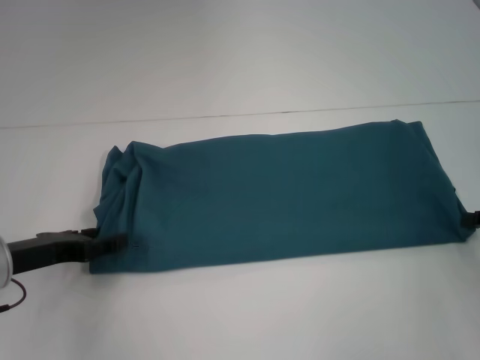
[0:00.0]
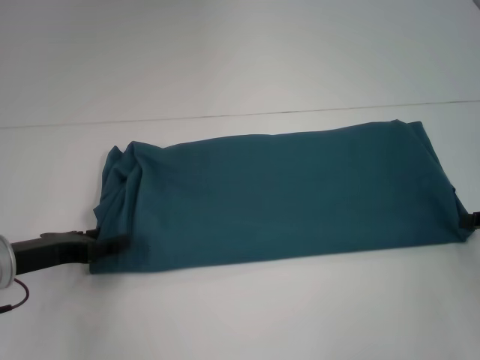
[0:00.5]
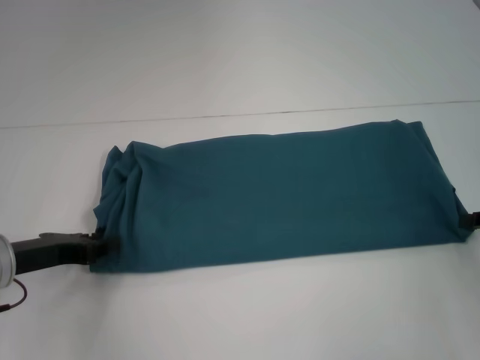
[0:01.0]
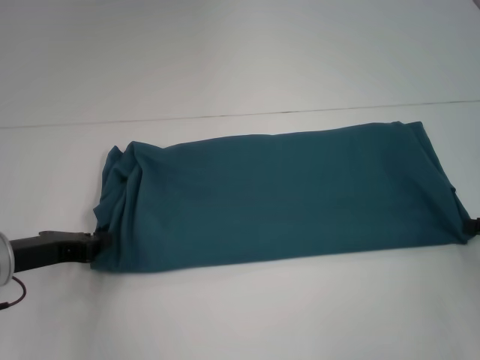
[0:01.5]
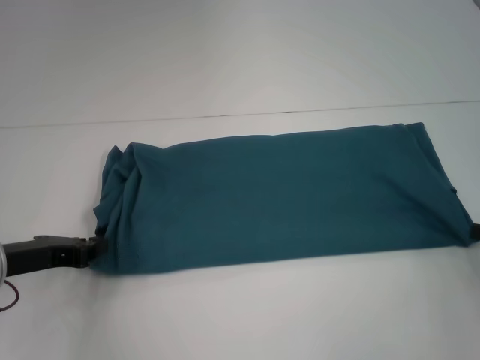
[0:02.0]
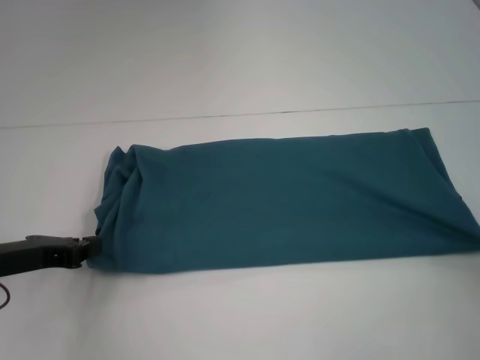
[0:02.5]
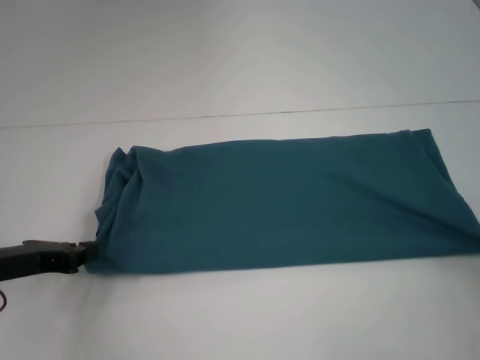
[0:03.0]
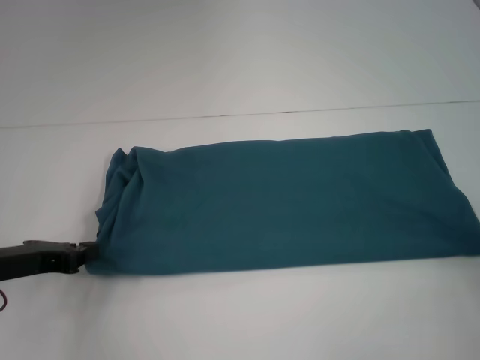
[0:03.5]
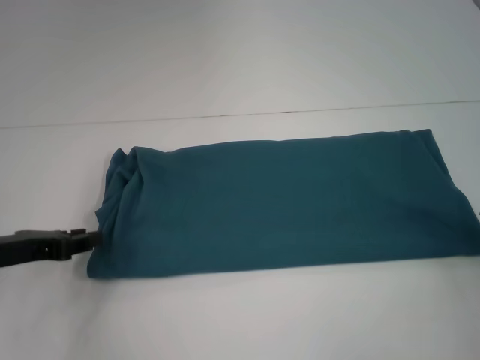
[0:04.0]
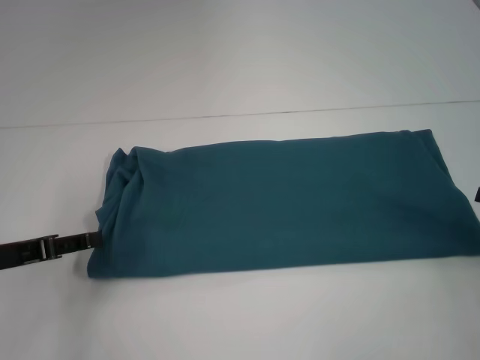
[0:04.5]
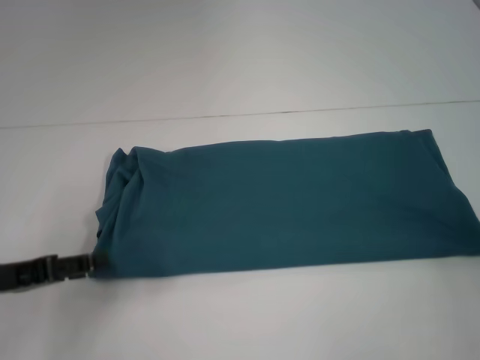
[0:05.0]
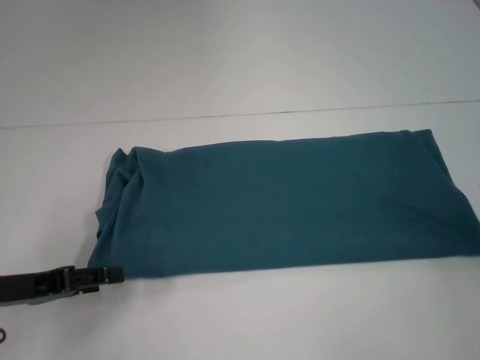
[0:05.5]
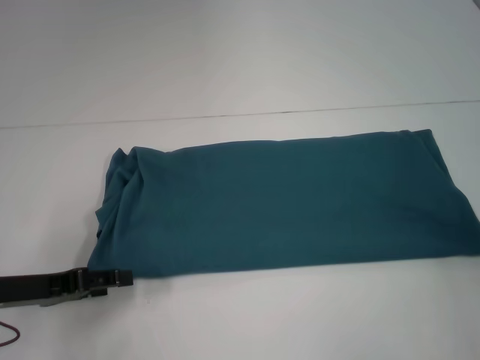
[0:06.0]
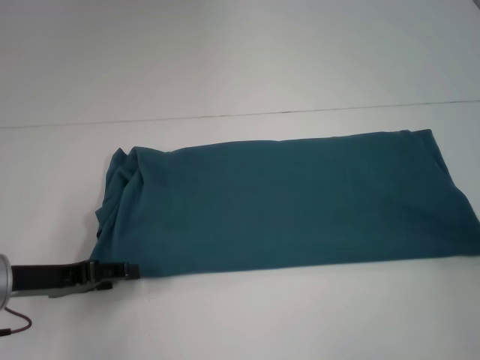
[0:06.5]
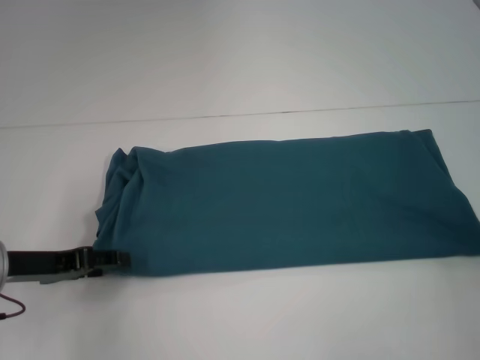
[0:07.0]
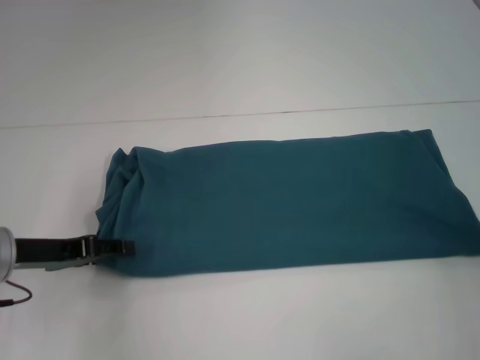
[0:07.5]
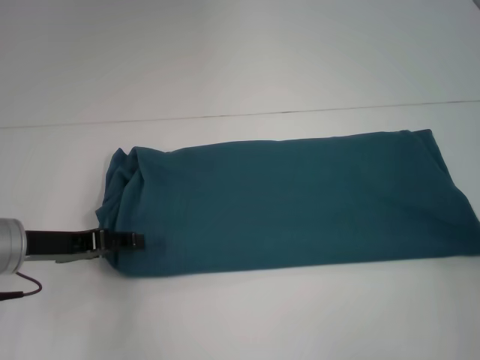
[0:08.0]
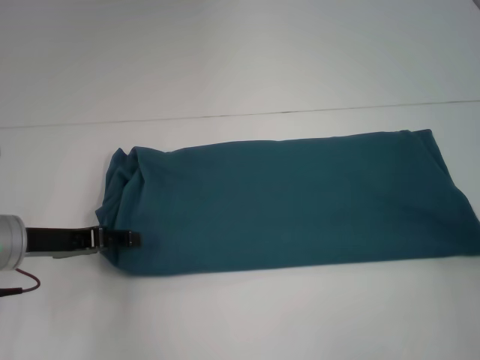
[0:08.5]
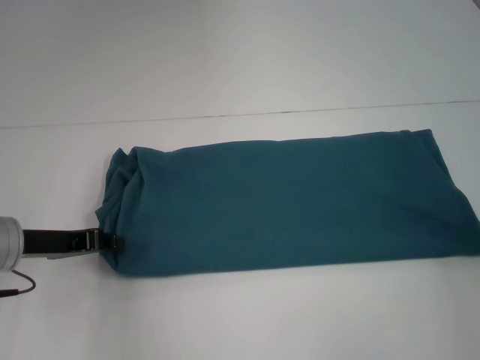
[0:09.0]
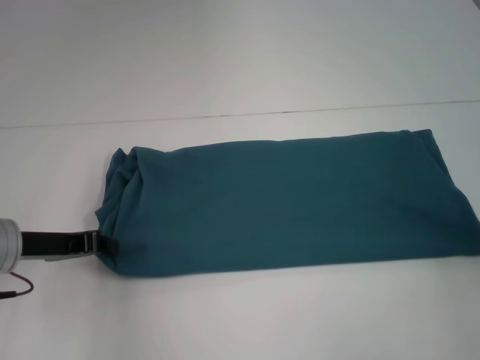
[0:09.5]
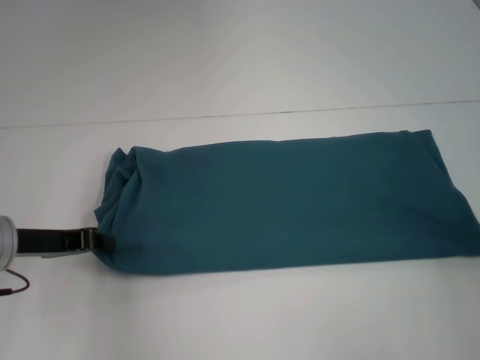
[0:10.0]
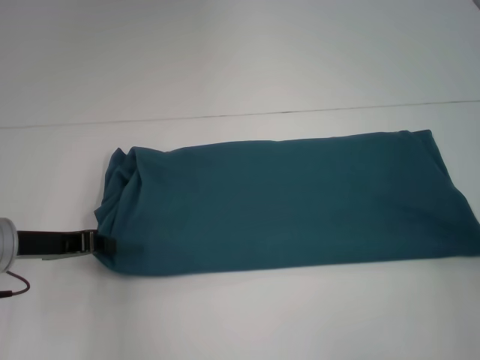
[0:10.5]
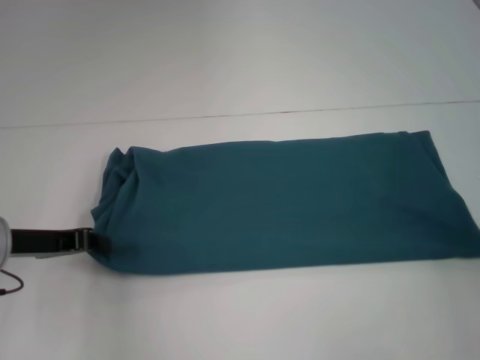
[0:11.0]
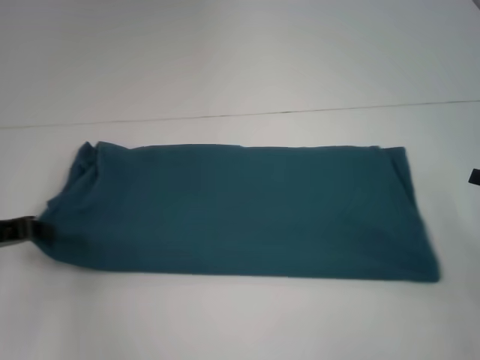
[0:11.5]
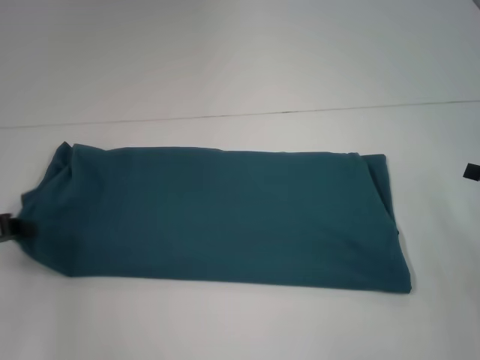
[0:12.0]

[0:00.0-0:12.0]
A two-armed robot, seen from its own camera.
0:00.0 to 0:02.0: The left gripper closes its fingers.
0:02.0 to 0:04.0: The right gripper opens its fingers.
0:04.0 to 0:06.0: The left gripper opens.
0:06.0 to 0:08.0: The left gripper moves some 5 cm.
0:08.0 to 0:10.0: The left gripper closes.
0:10.0 to 0:12.0: The left gripper heads to the left, covering about 5 cm.

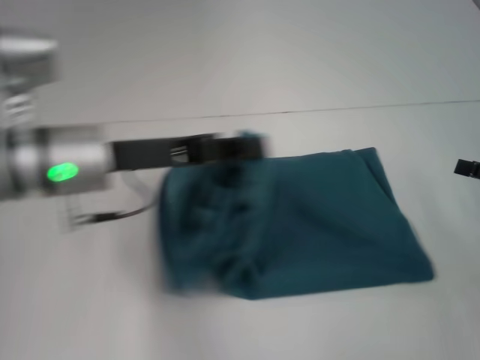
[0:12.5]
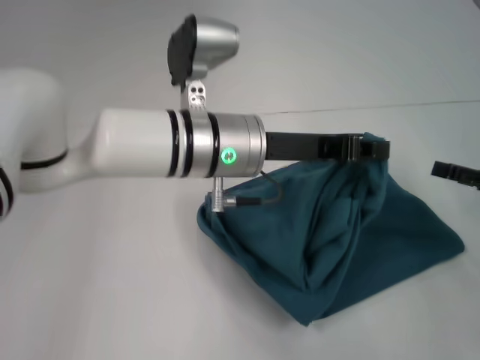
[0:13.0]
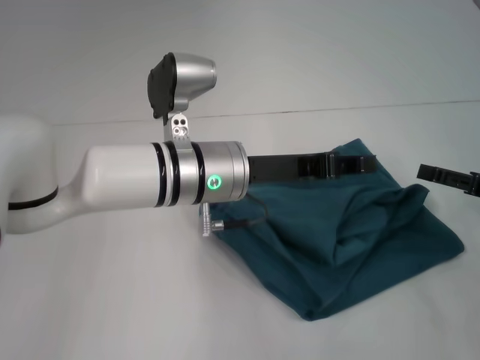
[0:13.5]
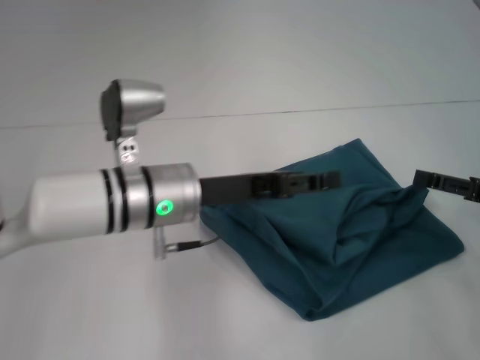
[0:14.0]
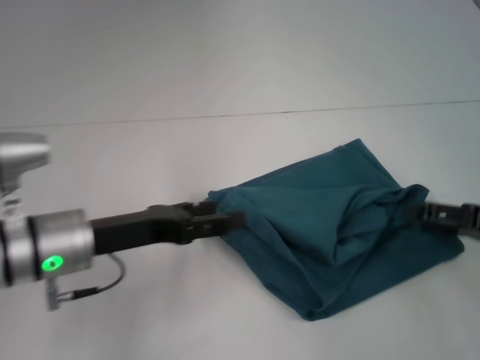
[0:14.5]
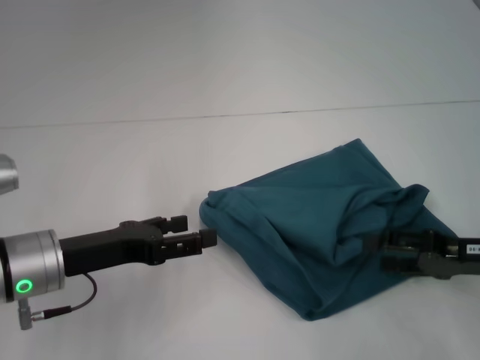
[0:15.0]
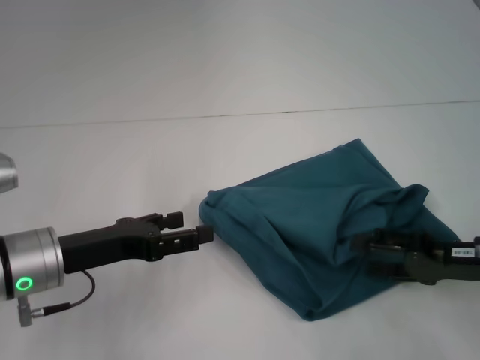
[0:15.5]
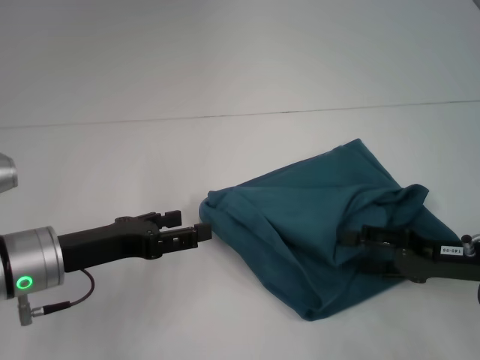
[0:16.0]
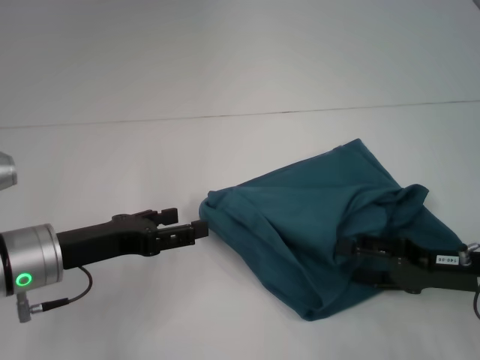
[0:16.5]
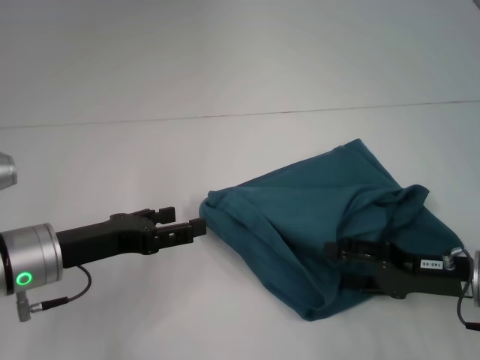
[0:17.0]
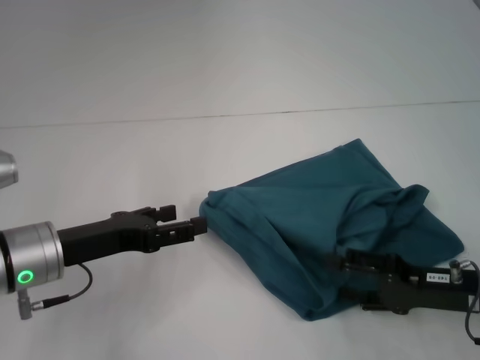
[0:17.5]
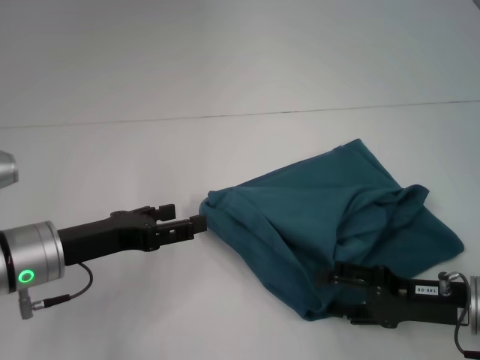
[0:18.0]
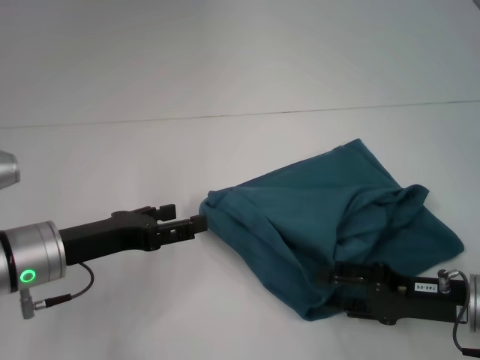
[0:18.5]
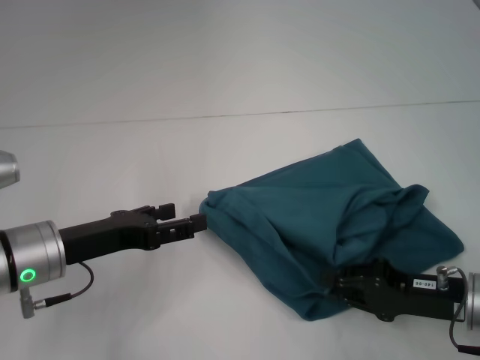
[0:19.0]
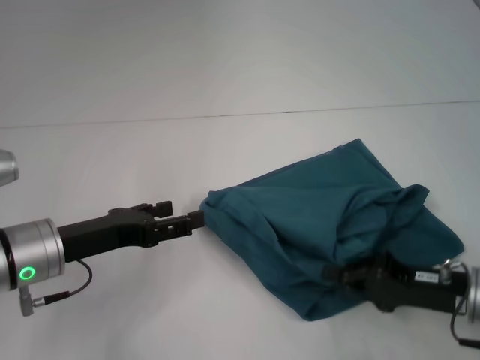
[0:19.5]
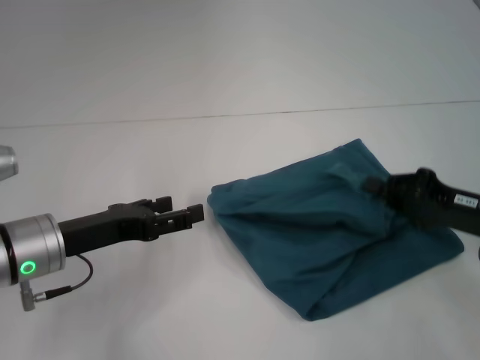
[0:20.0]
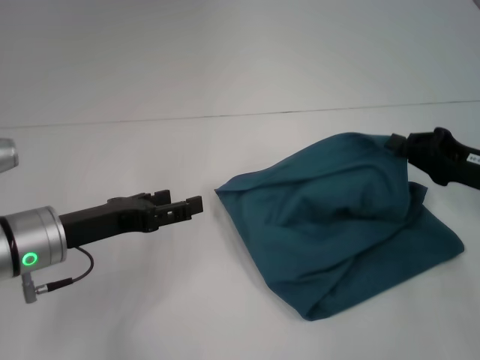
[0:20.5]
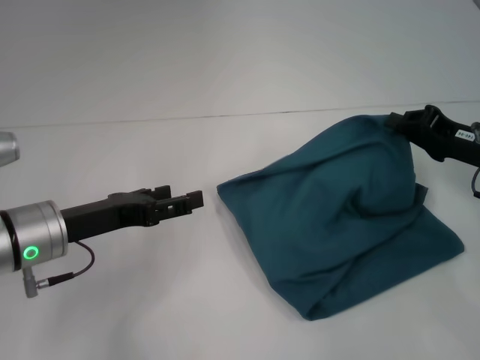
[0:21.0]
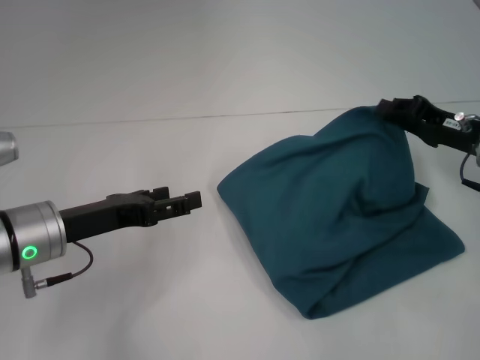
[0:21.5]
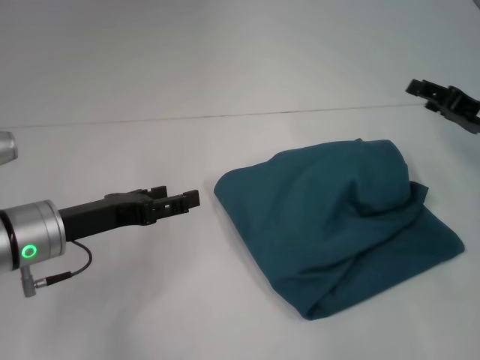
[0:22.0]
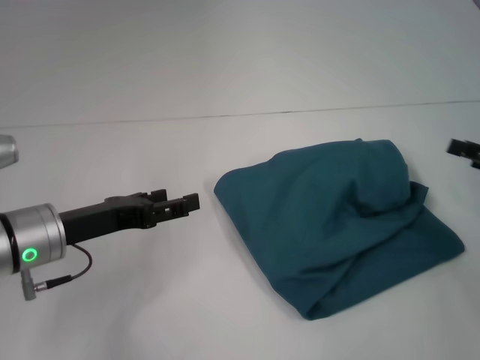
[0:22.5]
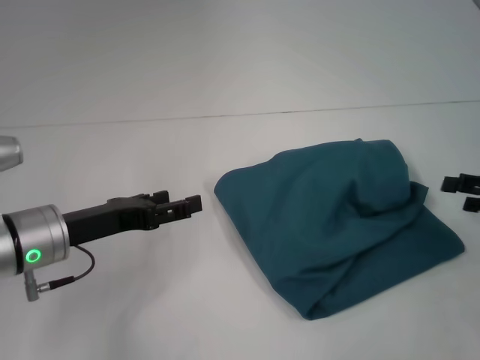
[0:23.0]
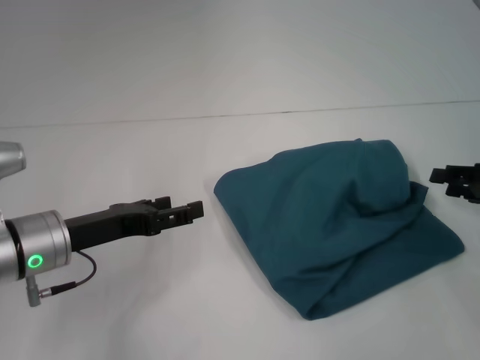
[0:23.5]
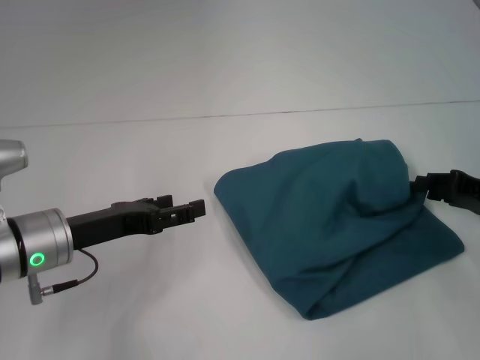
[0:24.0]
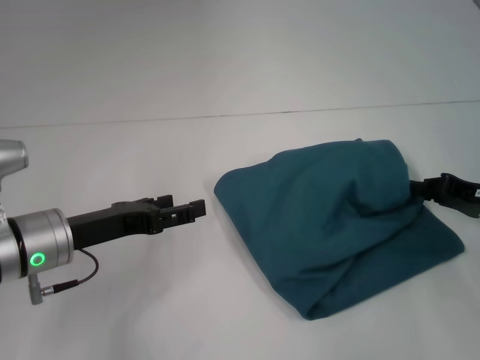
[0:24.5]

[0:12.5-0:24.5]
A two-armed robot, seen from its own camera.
Step, 0:12.5 to 0:14.5: Fold the clothes to the left.
0:12.5 to 0:14.5: The left gripper is displaced downward by roughly 5 cm, goes to the right and returns, approximately 15 cm each way, and opens its fingers.
0:14.5 to 0:16.5: The right gripper goes approximately 5 cm to the left.
0:16.5 to 0:18.5: The grippers stay close to where they were, moving slightly.
0:18.5 to 0:20.5: The right gripper moves forward, upward and to the right, approximately 10 cm, and closes up.
0:20.5 to 0:22.5: The right gripper moves to the right, roughly 5 cm, and opens up.
0:22.5 to 0:24.5: The right gripper moves roughly 5 cm, and closes.

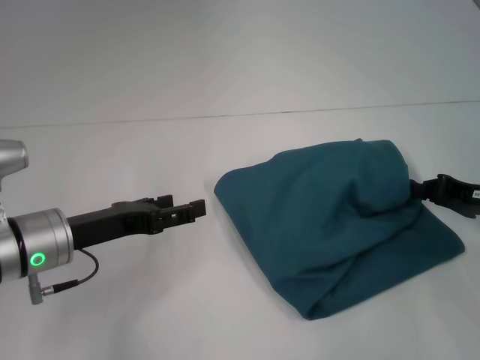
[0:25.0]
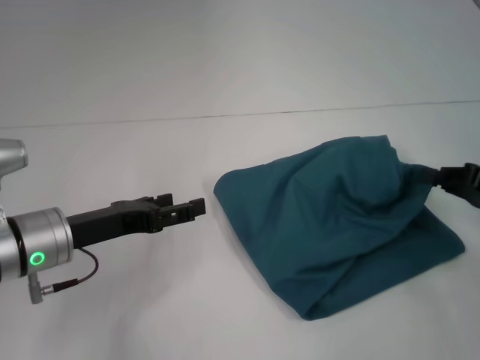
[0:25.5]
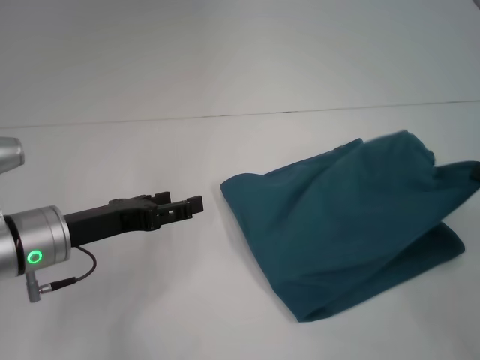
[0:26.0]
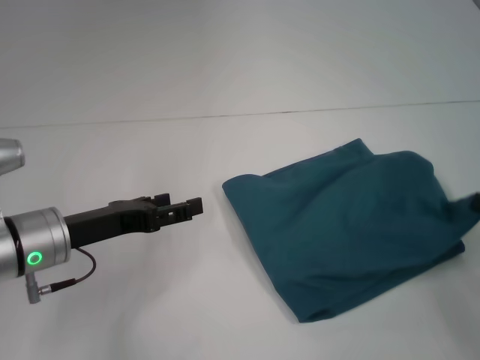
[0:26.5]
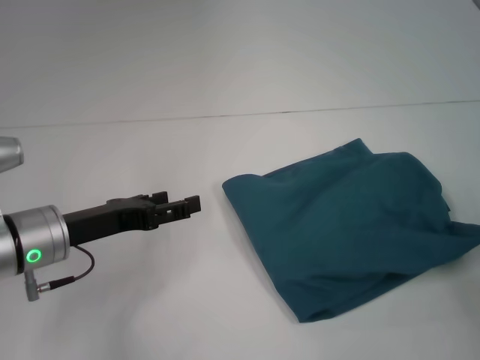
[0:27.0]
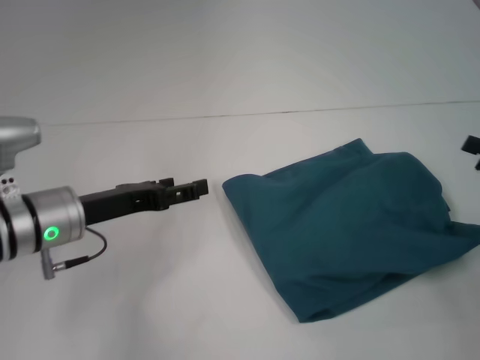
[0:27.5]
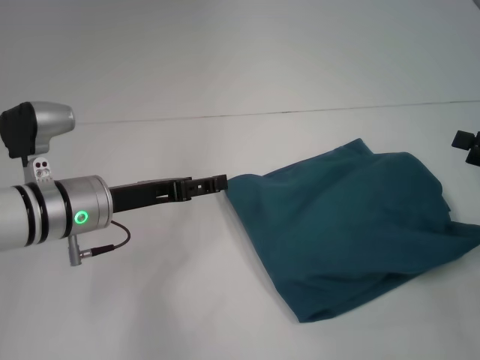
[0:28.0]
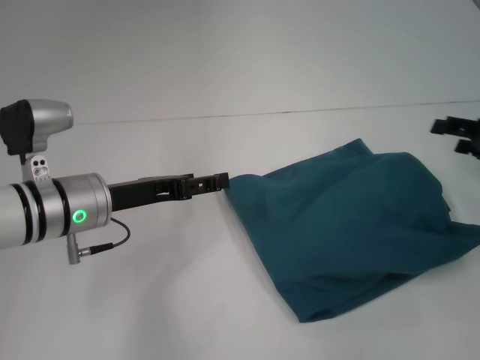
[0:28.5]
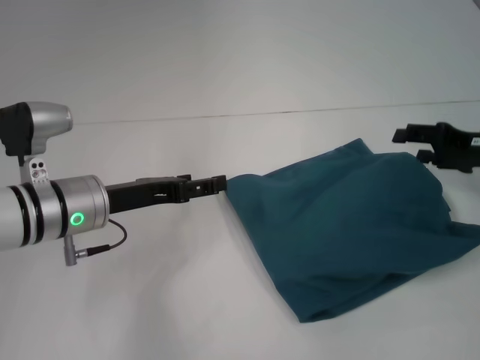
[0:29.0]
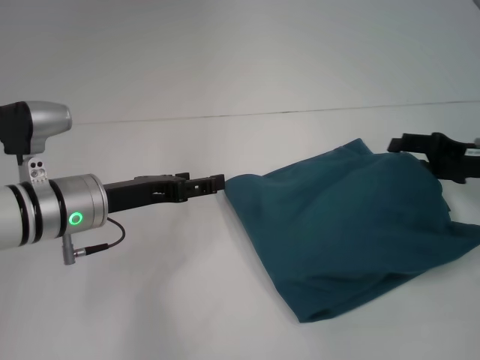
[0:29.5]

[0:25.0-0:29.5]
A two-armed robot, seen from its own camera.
0:25.0 to 0:27.0: The right gripper moves to the right and backward, roughly 10 cm.
0:27.0 to 0:29.5: The right gripper goes roughly 15 cm forward and to the left, and opens its fingers.
